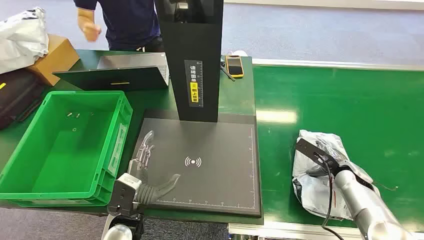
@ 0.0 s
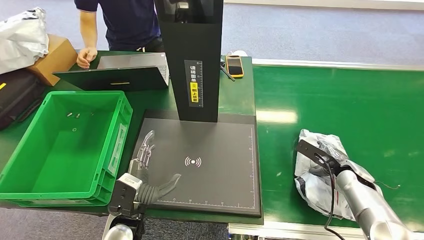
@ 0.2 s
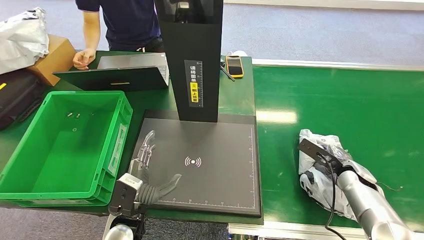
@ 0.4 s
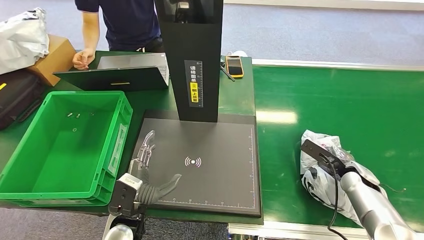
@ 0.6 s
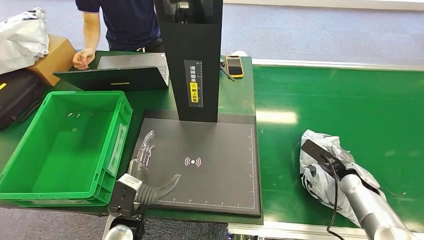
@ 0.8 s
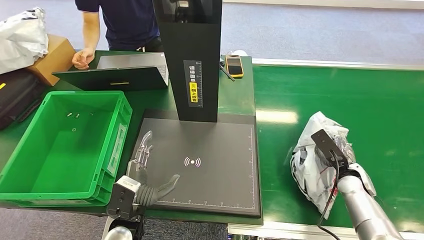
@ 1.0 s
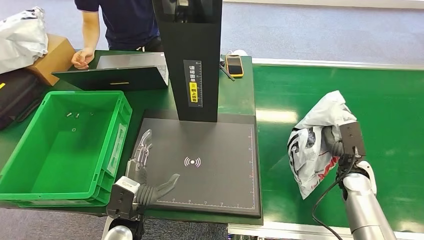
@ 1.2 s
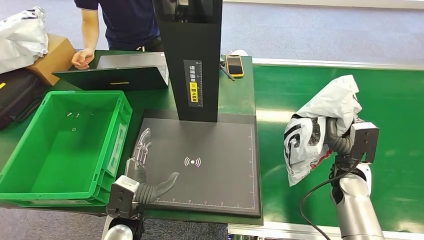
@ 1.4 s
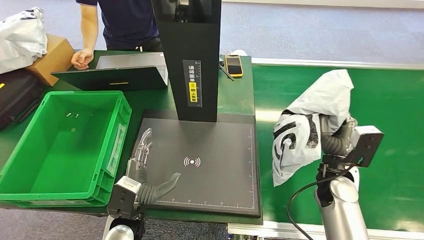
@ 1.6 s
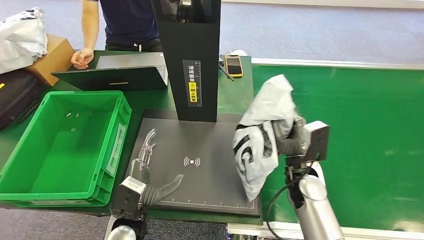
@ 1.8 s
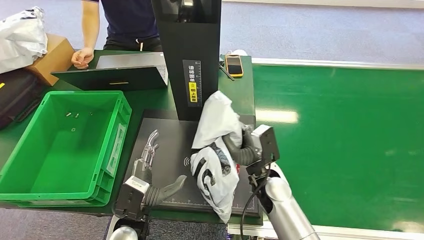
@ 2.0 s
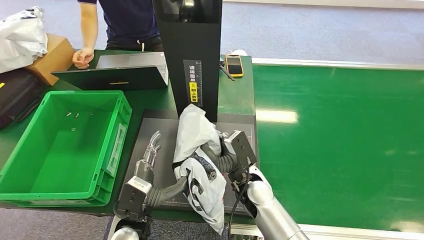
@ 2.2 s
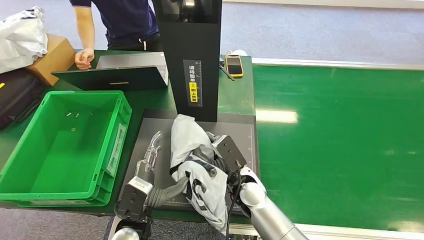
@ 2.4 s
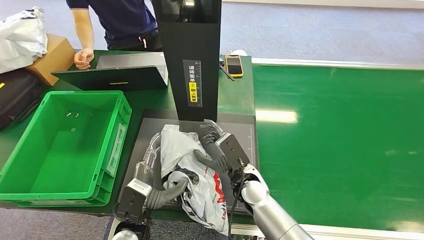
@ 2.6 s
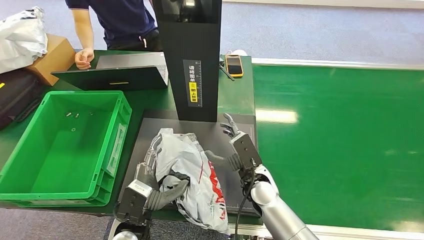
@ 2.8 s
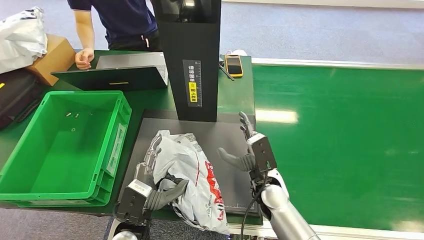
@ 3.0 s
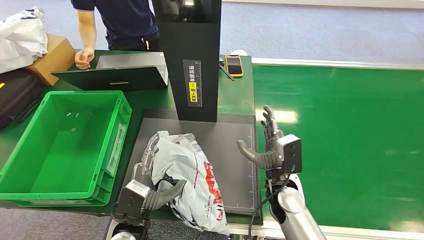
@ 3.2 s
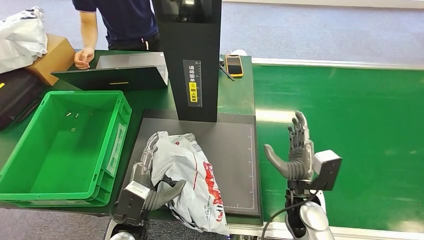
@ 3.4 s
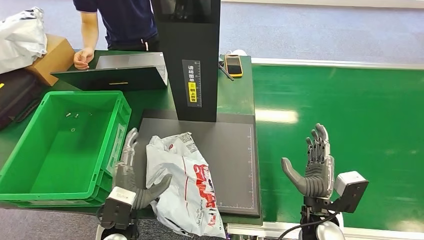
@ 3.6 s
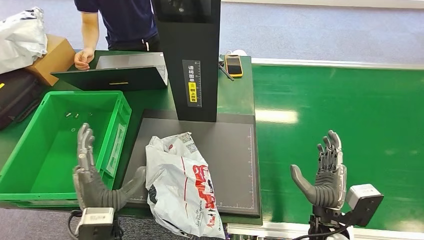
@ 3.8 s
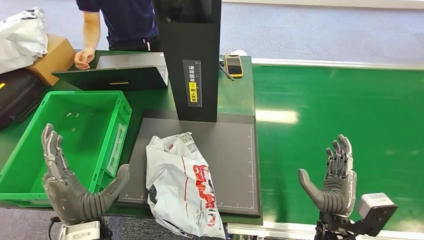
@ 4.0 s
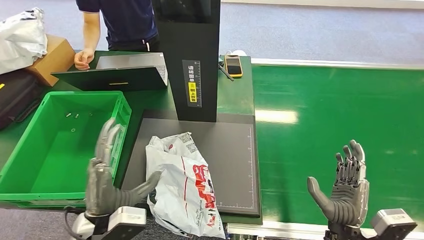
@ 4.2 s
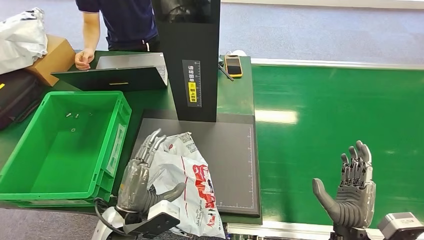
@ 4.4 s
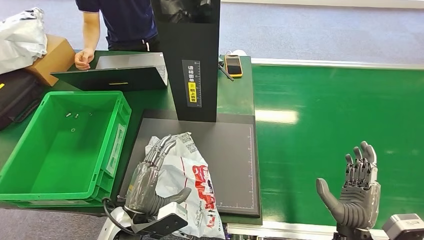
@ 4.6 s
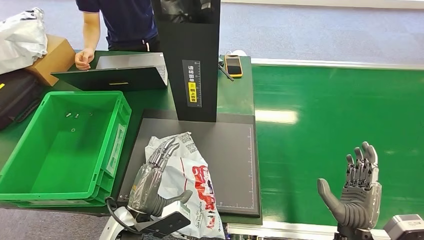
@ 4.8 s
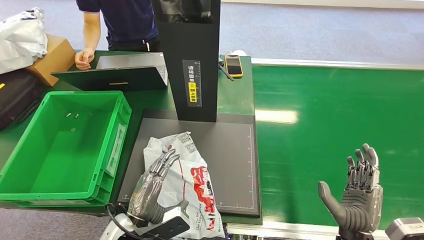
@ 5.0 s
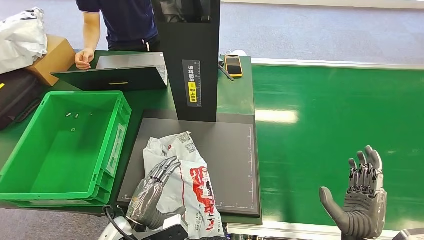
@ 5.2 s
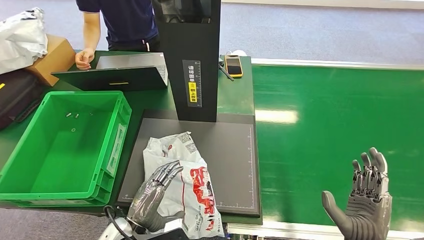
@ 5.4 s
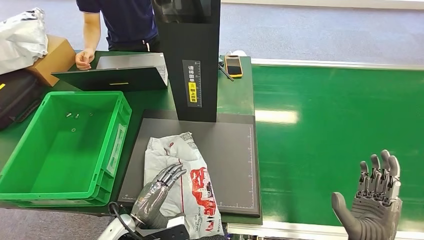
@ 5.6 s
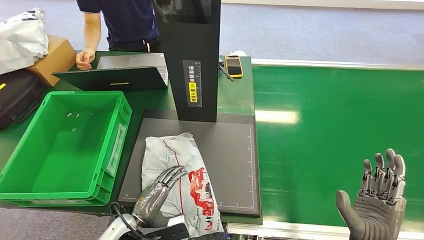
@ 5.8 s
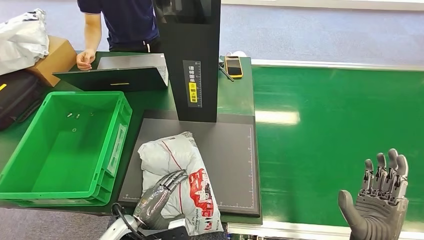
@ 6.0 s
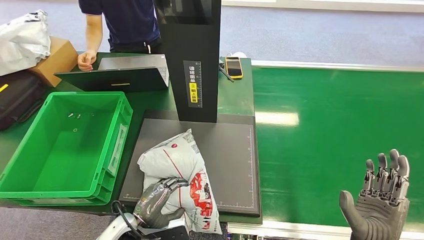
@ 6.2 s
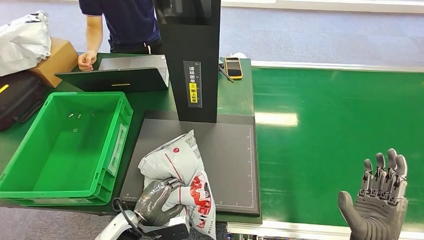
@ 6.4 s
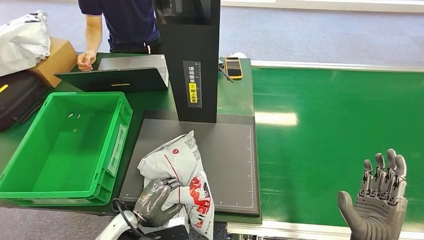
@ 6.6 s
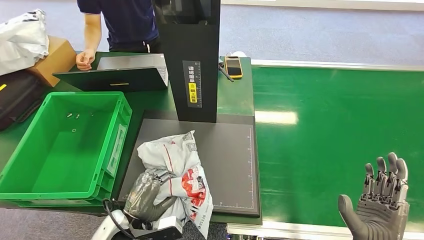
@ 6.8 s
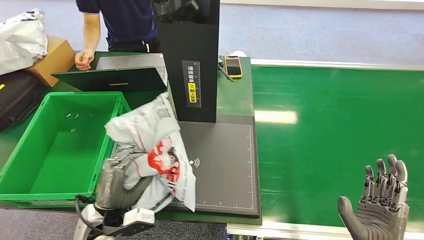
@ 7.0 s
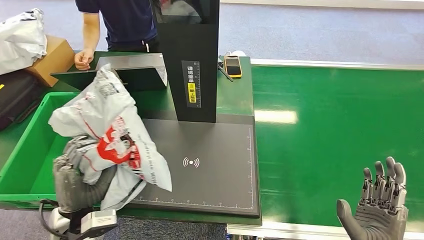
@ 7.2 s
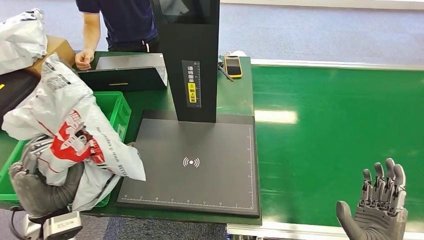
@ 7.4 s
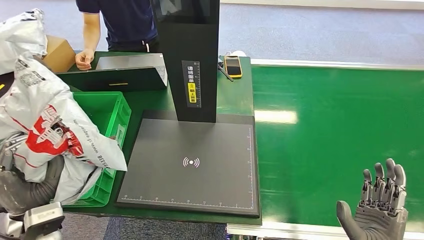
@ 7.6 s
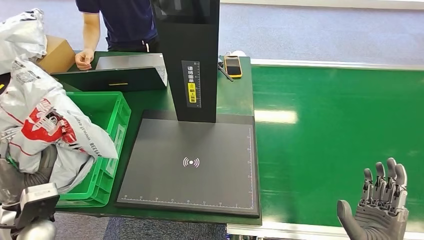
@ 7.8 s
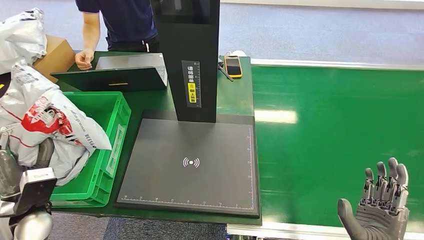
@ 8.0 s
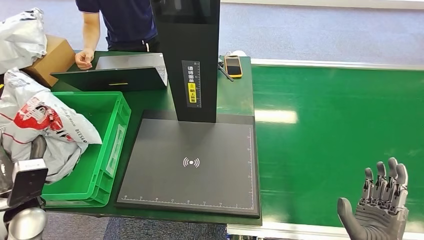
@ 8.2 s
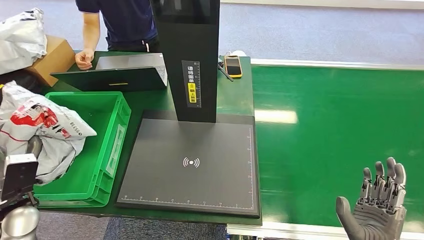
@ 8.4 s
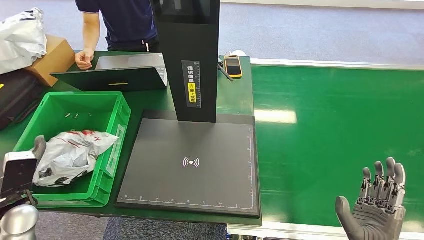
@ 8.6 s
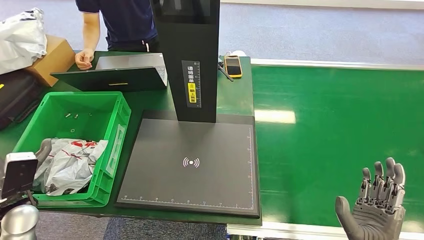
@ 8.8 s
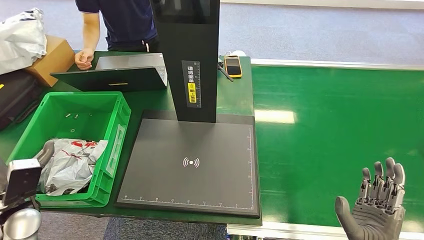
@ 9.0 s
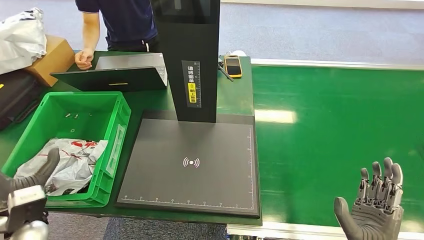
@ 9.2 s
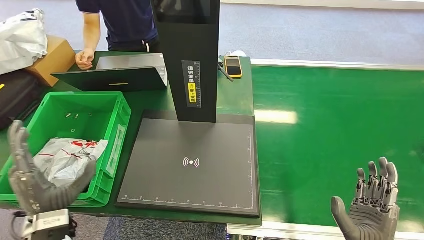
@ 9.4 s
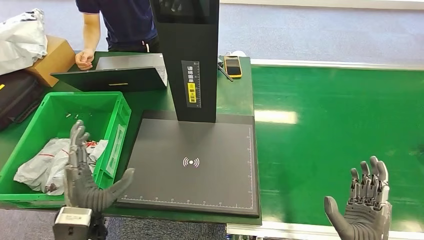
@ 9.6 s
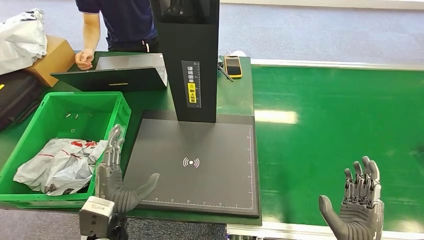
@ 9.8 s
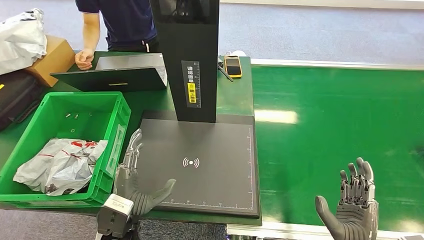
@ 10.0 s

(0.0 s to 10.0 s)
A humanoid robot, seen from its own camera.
Step, 0.0 s - 1.2 s: Pick up the package from the conveyor belt.
Step, 1.4 s - 4.4 s: Place the package onto the inbound machine.
Step, 4.6 s - 7.2 s: Pick up the package from the inbound machine.
Step, 7.4 s - 10.0 s: Place the package into the parcel locker.
4.2 s - 5.8 s: The left hand shifts about 10 cm downward.
7.2 s - 8.6 s: The left hand is displaced to the left by some 15 cm.
8.6 s - 10.0 s: The left hand travels to the right by about 25 cm.
